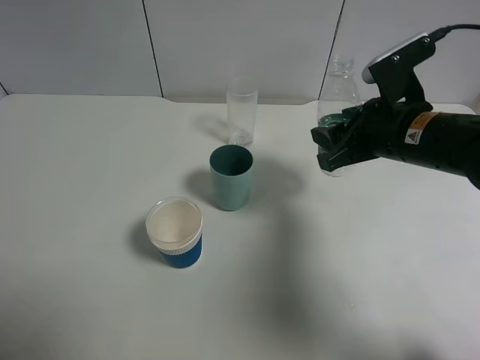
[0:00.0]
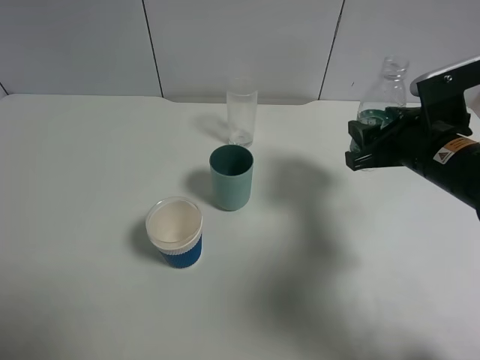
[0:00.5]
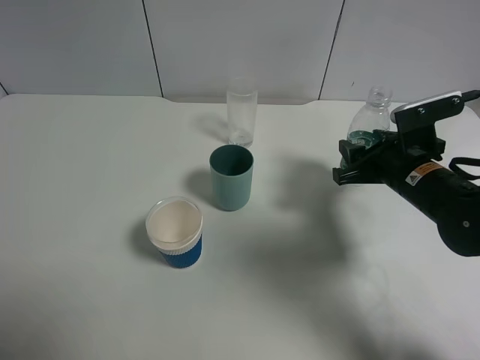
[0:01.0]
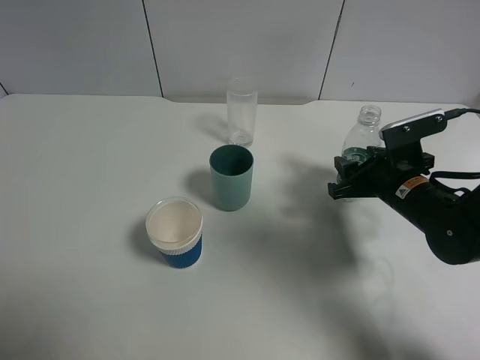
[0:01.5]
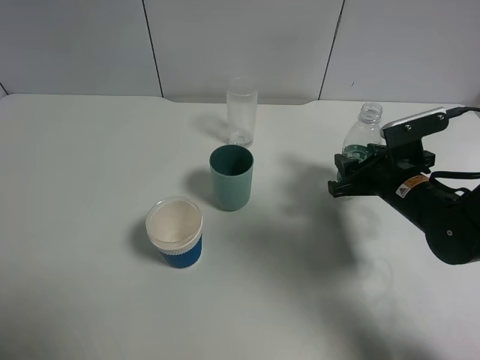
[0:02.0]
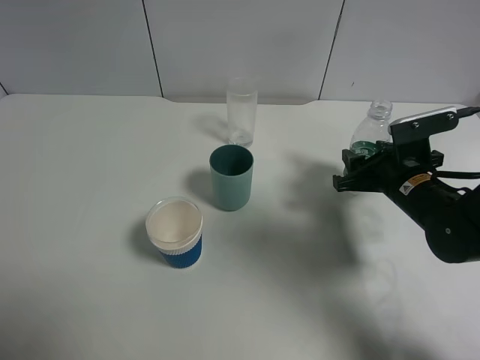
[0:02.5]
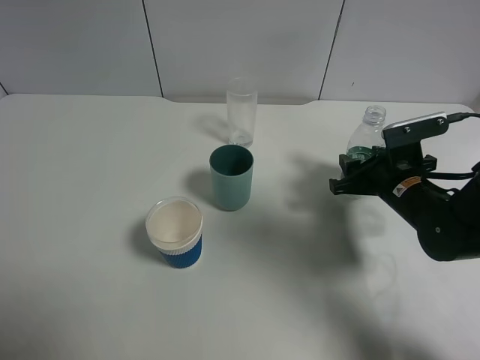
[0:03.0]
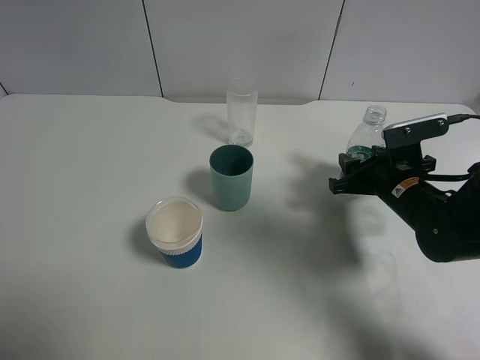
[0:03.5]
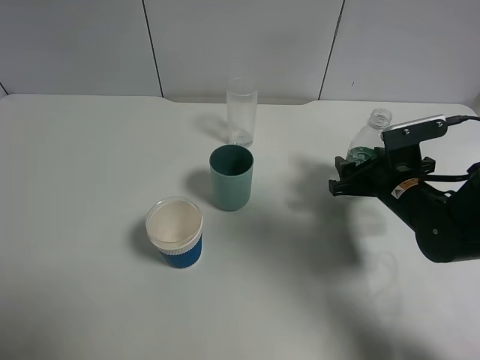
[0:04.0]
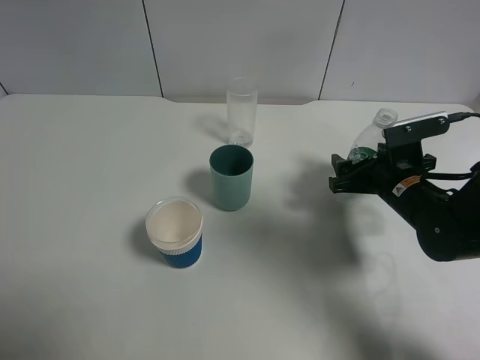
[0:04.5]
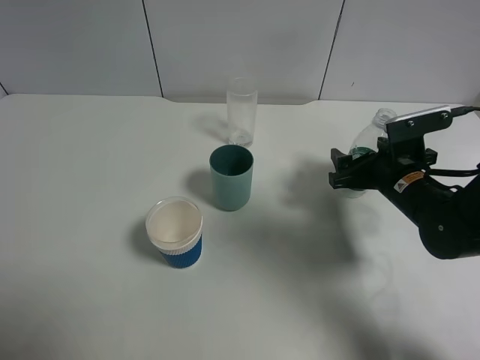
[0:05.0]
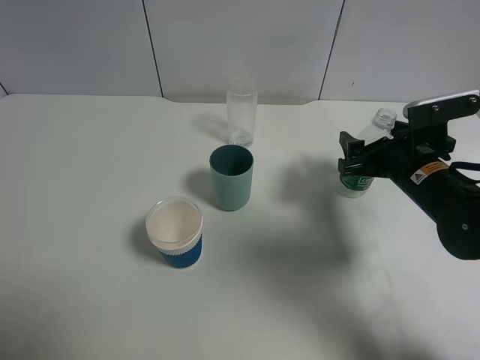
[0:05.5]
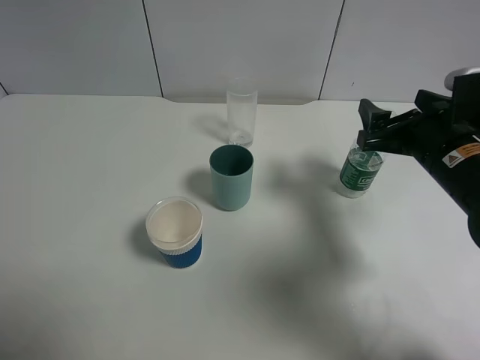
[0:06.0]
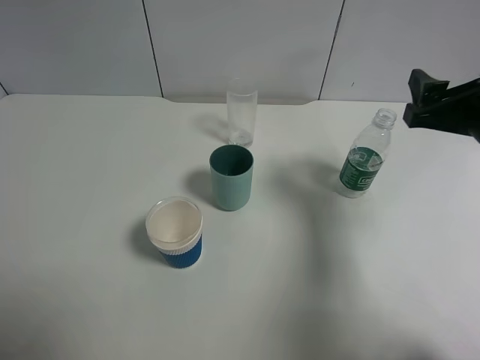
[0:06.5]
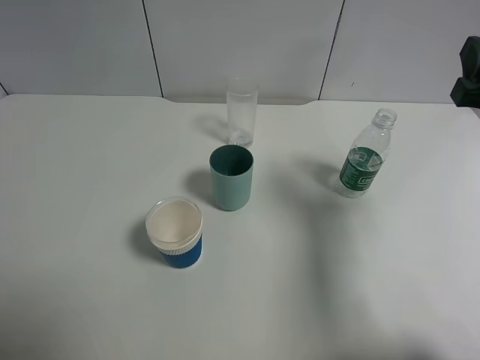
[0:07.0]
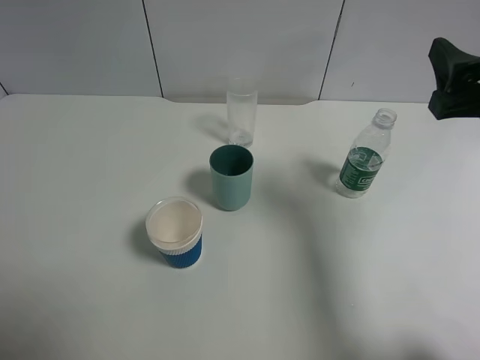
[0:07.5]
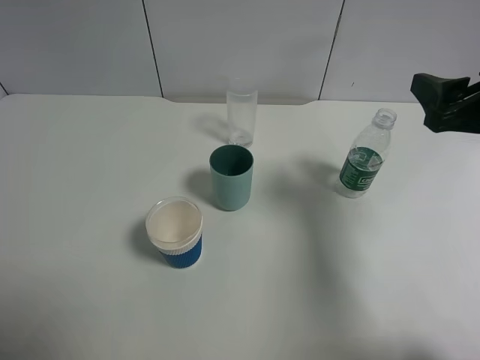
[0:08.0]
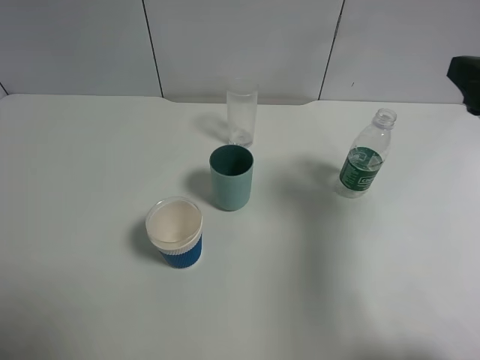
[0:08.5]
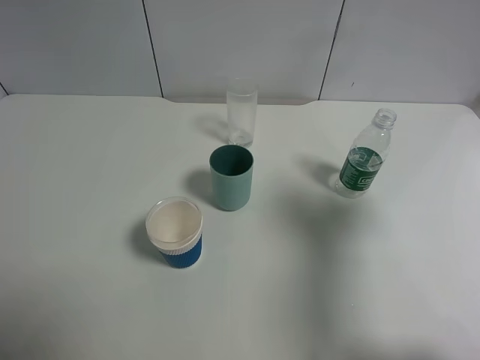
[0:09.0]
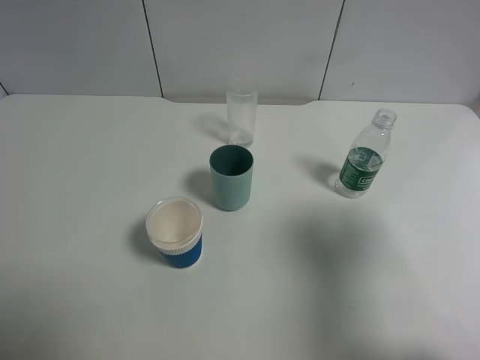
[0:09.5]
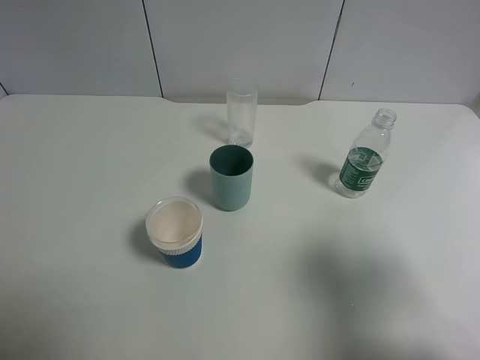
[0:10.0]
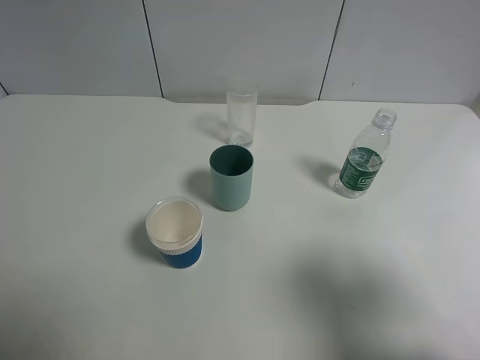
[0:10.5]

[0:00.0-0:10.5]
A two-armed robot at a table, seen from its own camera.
Task of the whole recording: use a gripper to hold the bottle of the drink and pour it into a random cup.
Step, 0:00.0 to 0:05.5: Place the mineral water bottle on the table with the right gripper.
0:00.0 to 0:02.0: The right gripper heads downward, covering some 10 cm.
0:02.0 to 0:04.0: The right gripper opens its fingers.
0:04.0 to 0:06.5: The right gripper moves upward, roughly 15 cm.
0:06.5 to 0:08.5: The right gripper moves upward, some 5 cm.
0:08.5 to 0:10.5: The right gripper heads backward, covering roughly 15 cm.

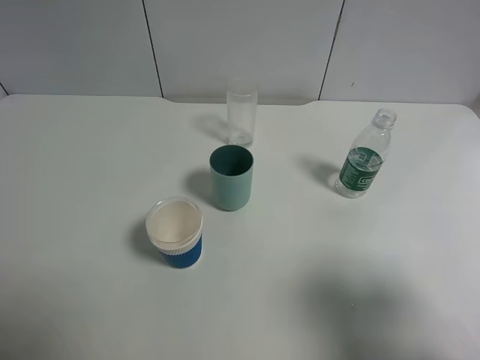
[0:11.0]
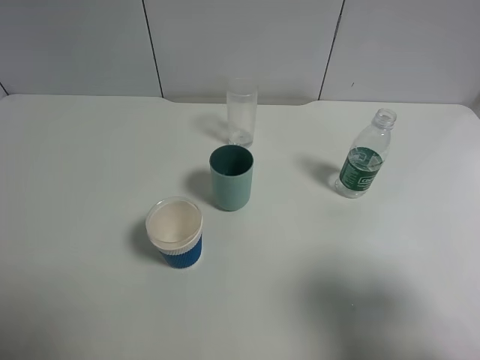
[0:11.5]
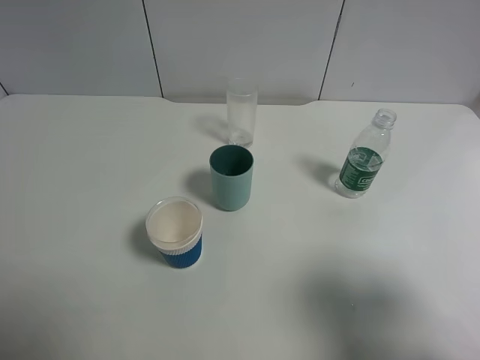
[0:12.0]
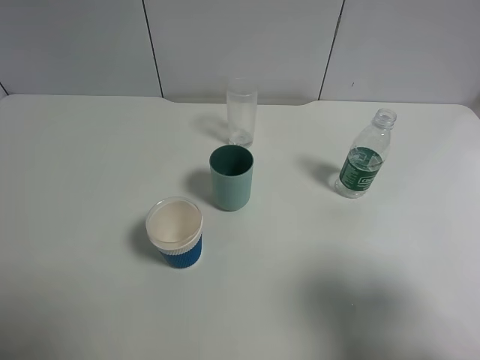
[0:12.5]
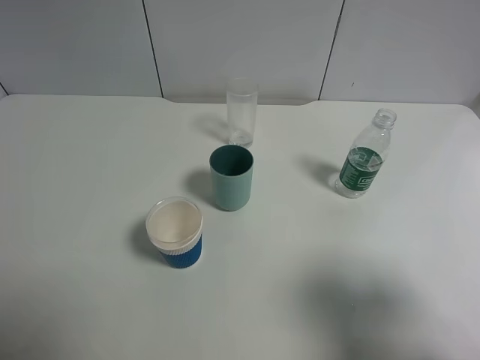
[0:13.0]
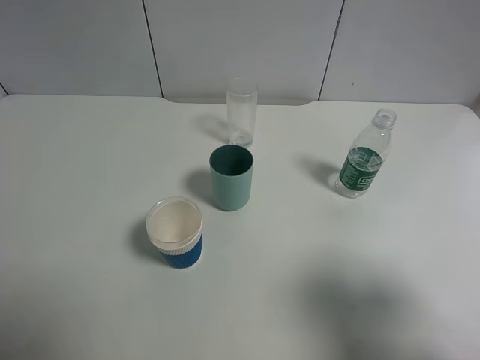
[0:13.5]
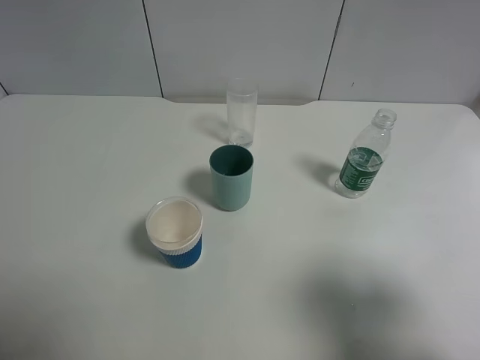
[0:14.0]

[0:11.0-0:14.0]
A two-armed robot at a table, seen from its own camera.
Task of the whole recording: use a gripper to hold the bottle of the drink and pour it into a random cup.
0:11.0 to 0:14.0: The two grippers keep their place.

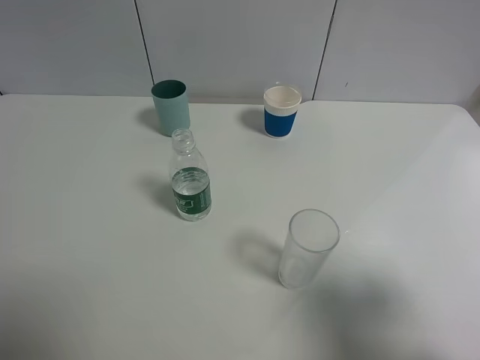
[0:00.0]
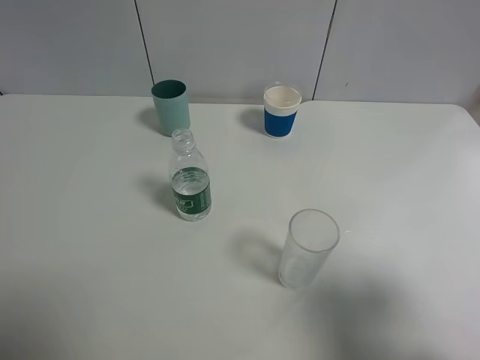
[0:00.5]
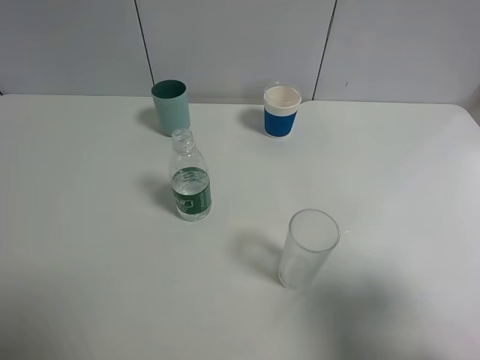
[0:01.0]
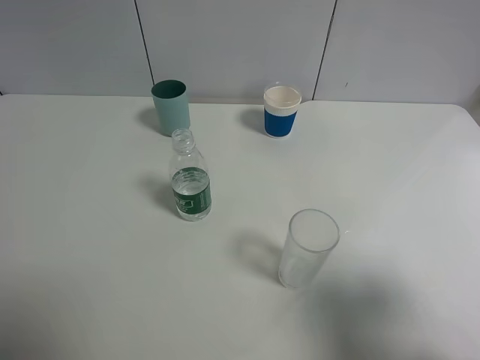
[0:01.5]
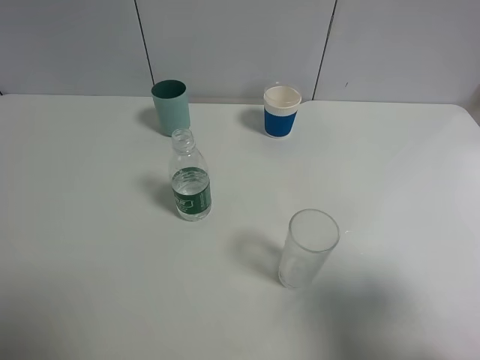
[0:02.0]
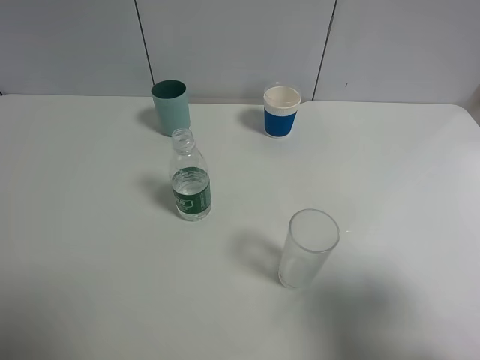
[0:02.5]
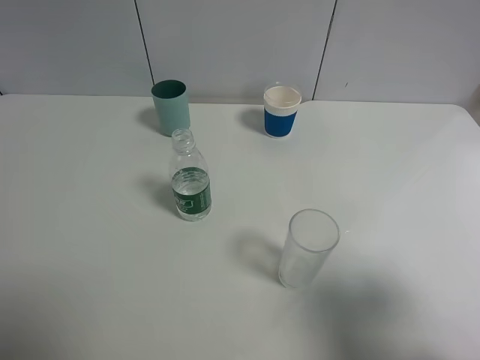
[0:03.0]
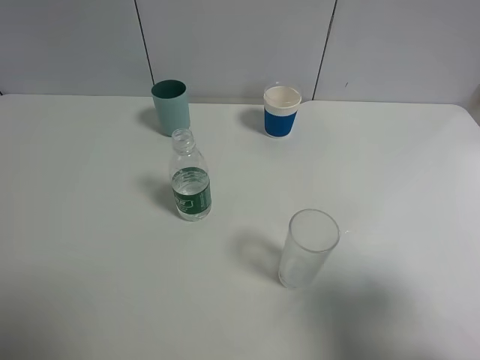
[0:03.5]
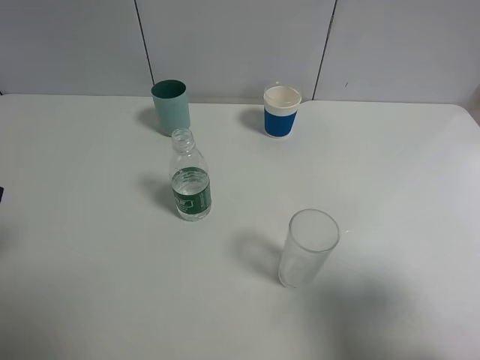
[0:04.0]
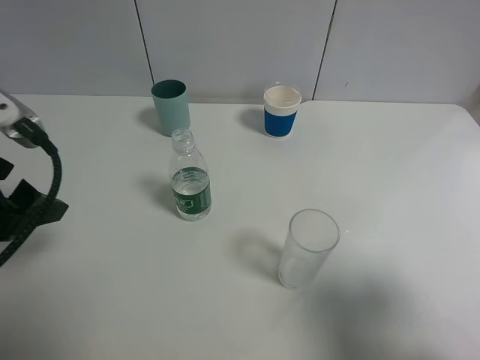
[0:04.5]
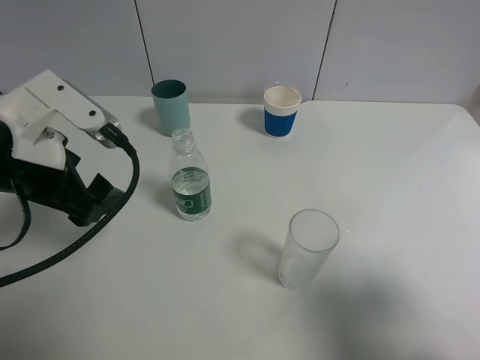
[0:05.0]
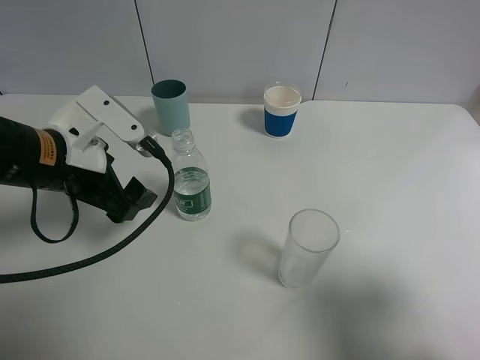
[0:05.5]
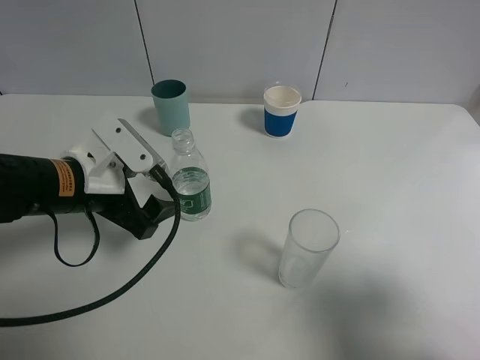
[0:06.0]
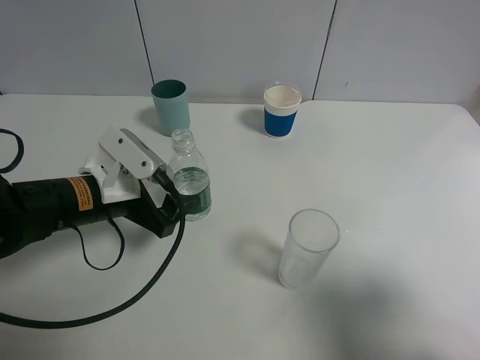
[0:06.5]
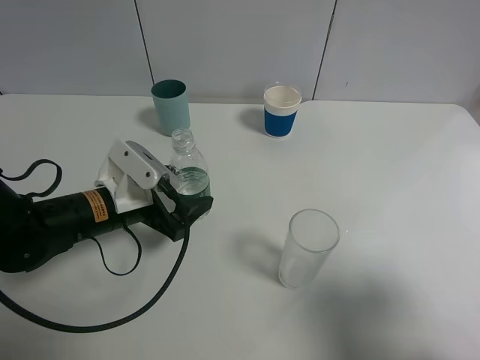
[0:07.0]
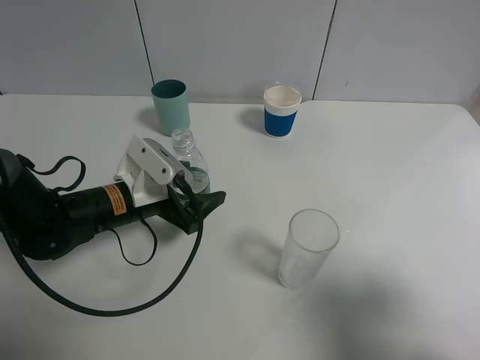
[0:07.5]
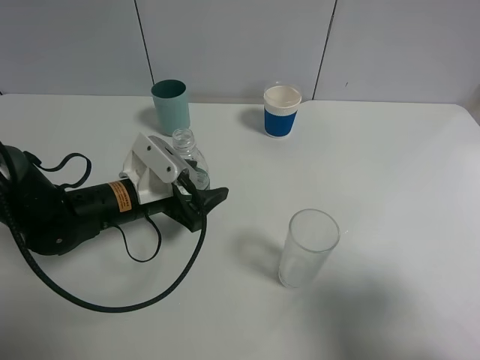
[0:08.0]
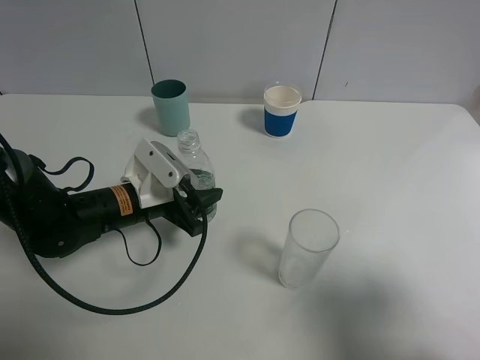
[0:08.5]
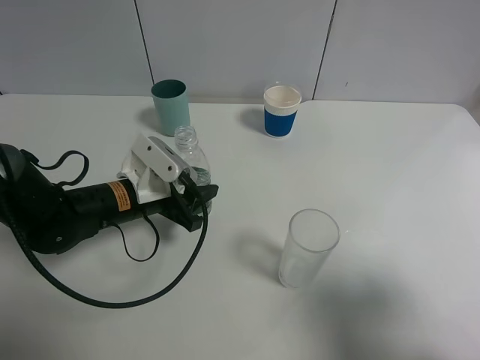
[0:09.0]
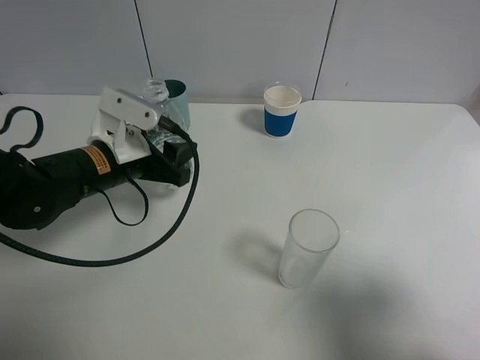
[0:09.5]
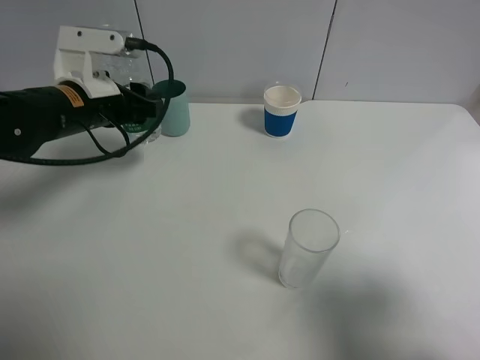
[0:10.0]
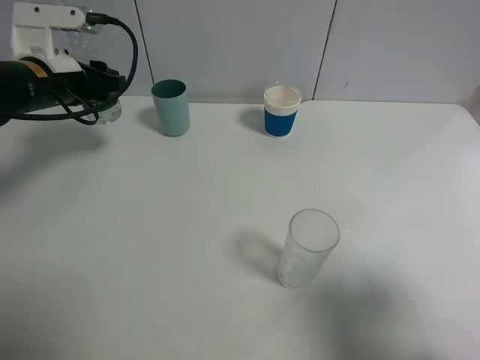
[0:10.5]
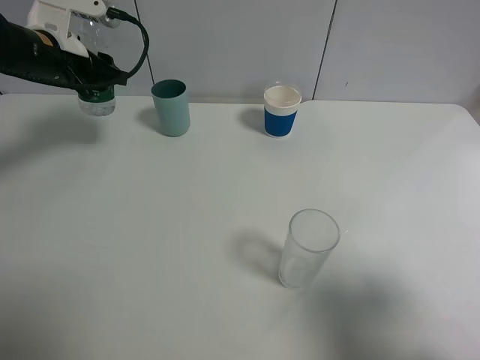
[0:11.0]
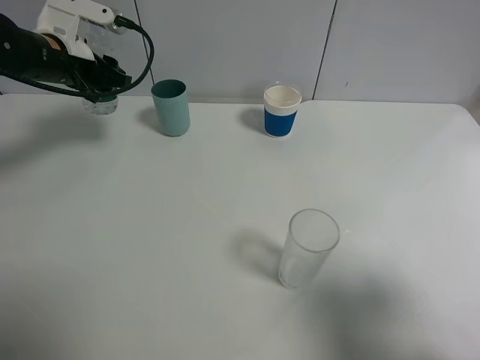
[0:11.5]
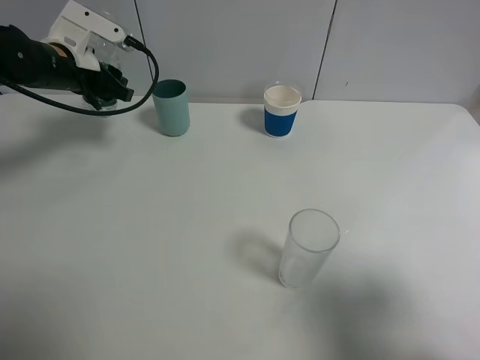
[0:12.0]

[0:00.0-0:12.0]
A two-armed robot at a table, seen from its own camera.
Task of the whole recording: use a gripper to hold the bottle of the drink and pour it into a random cup.
Step, 0:00.0 to 0:08.5: Grasp the mineral water bottle with the left gripper.
0:00.0 to 0:02.0: The two grippers keep their place.
0:04.0 to 0:06.0: The left gripper goes some 20 cm downward, to the right and forward.
0:06.0 to 0:08.0: The left gripper moves downward, some 5 cm.
0:08.0 to 0:10.0: The left gripper shifts approximately 15 cm upward, forward and to the left, and closes up.
0:10.0 to 0:12.0: The left gripper heads forward and to the left, covering some 10 cm.
